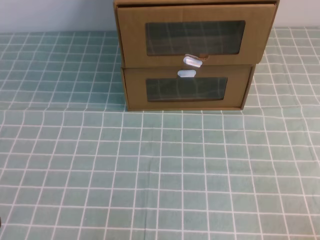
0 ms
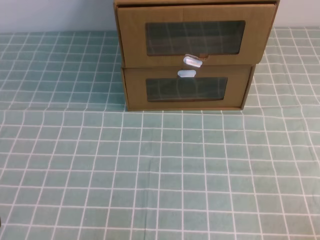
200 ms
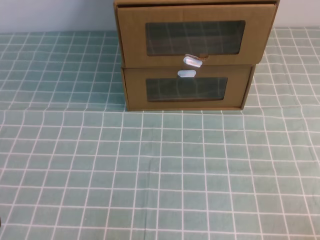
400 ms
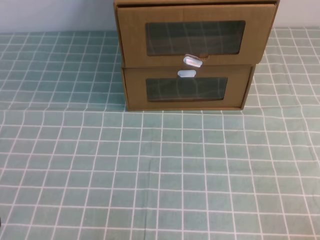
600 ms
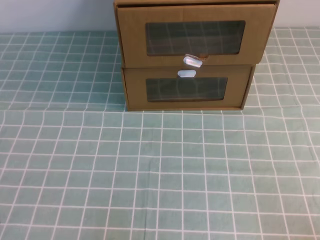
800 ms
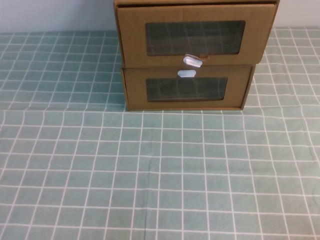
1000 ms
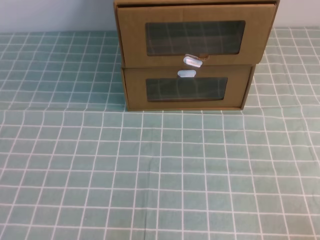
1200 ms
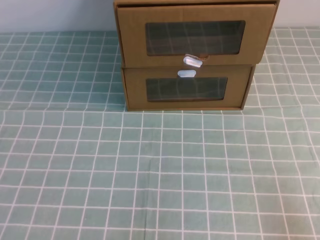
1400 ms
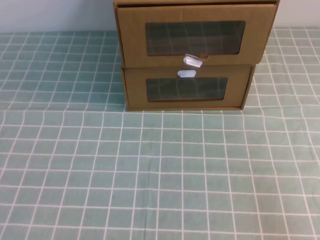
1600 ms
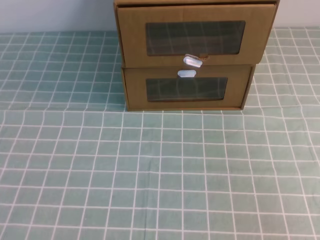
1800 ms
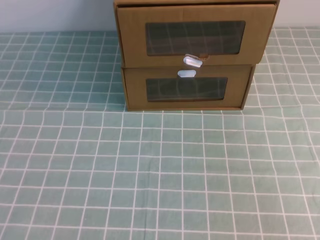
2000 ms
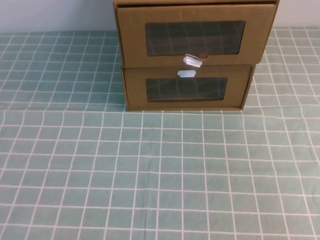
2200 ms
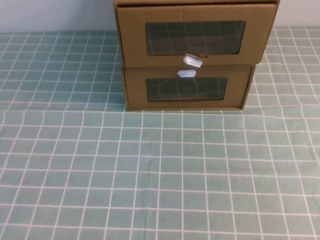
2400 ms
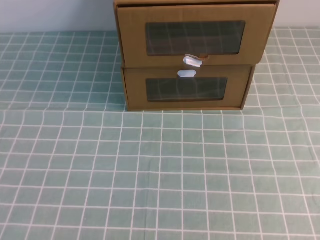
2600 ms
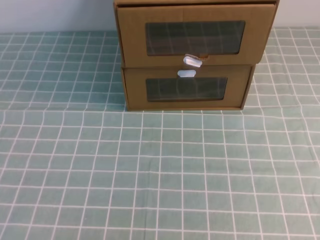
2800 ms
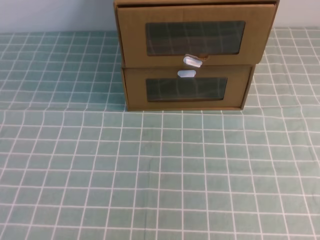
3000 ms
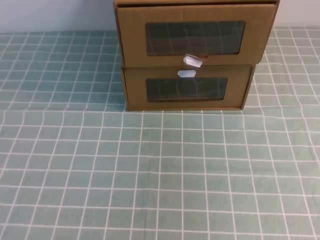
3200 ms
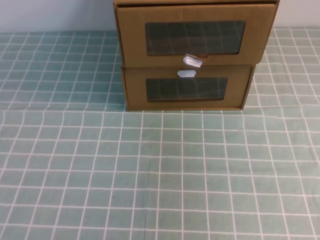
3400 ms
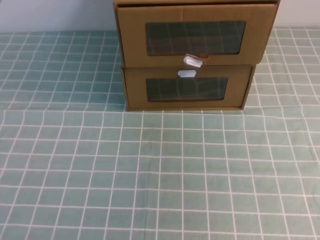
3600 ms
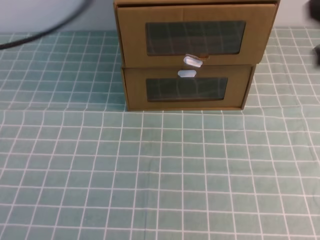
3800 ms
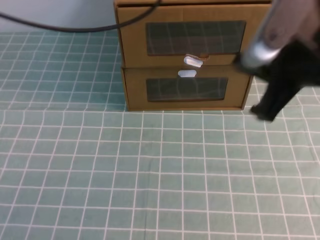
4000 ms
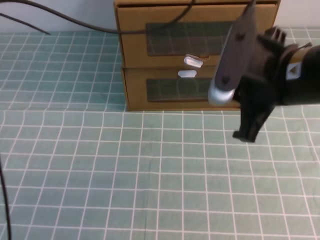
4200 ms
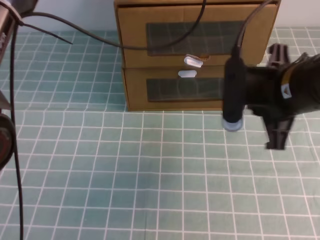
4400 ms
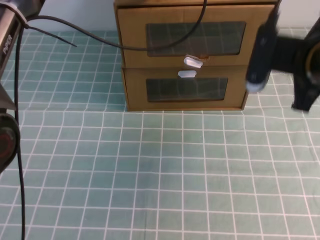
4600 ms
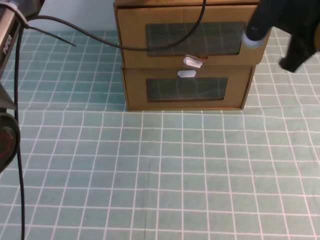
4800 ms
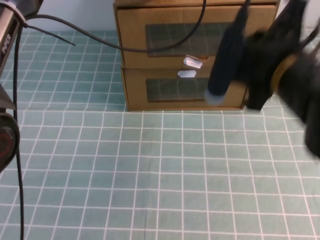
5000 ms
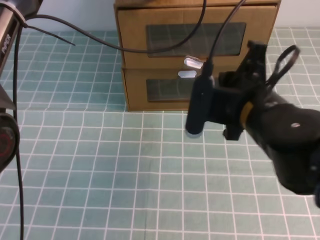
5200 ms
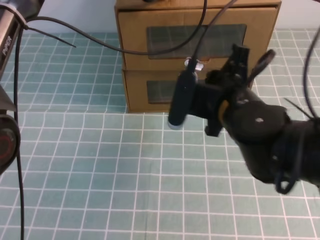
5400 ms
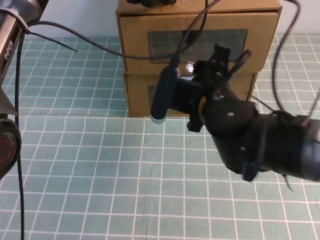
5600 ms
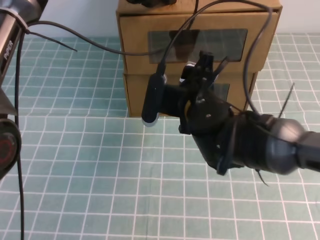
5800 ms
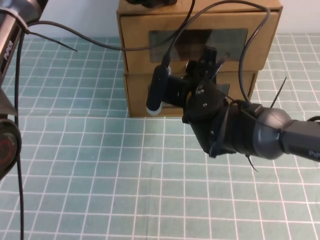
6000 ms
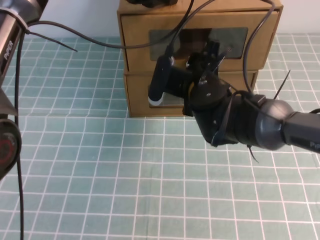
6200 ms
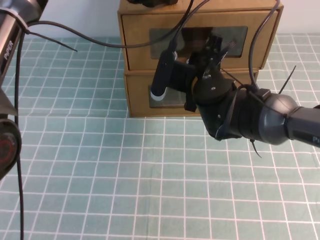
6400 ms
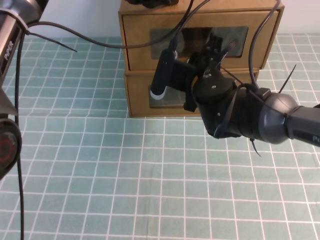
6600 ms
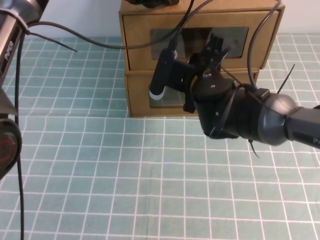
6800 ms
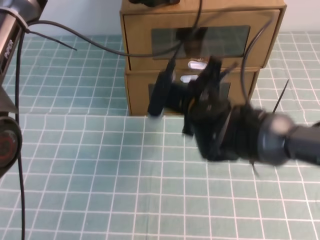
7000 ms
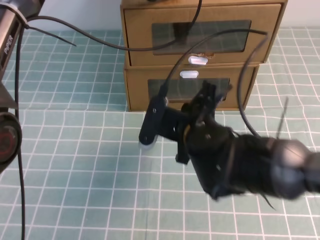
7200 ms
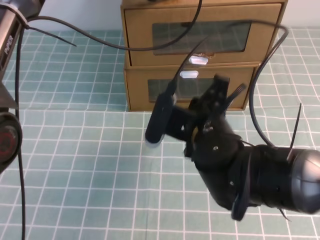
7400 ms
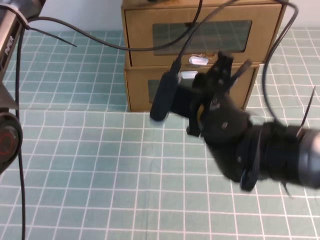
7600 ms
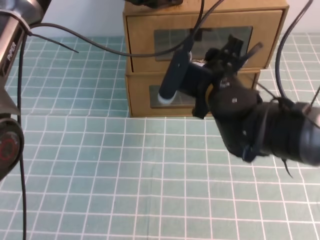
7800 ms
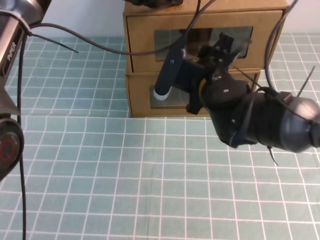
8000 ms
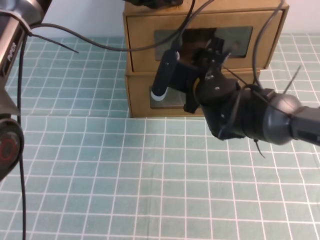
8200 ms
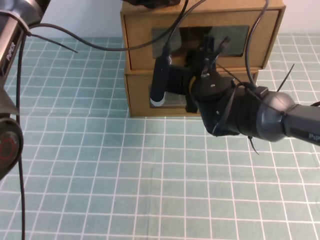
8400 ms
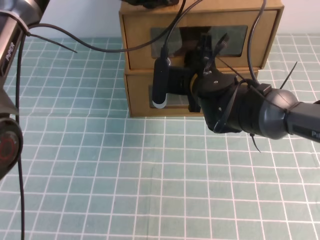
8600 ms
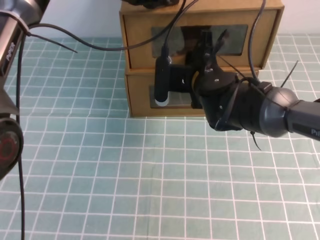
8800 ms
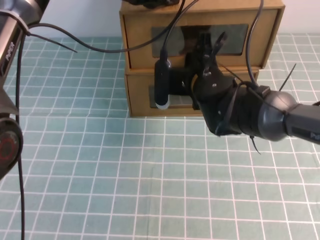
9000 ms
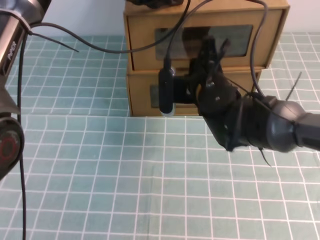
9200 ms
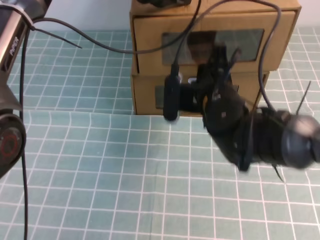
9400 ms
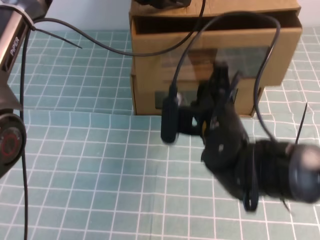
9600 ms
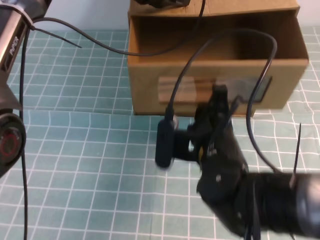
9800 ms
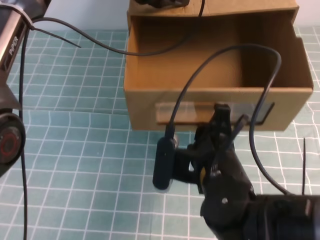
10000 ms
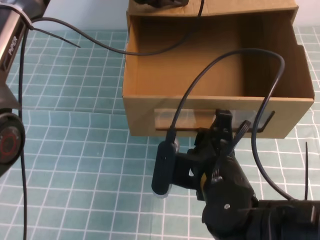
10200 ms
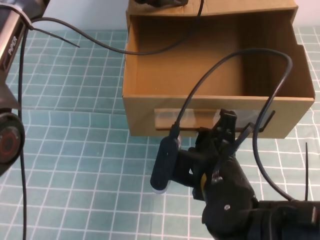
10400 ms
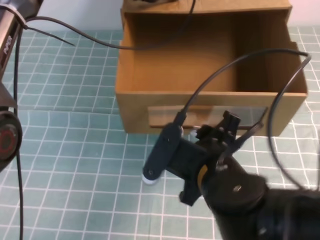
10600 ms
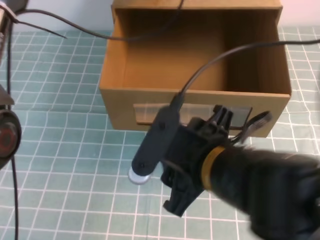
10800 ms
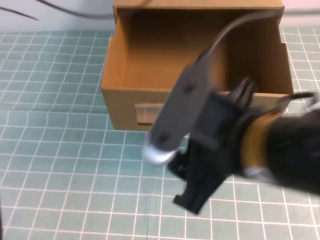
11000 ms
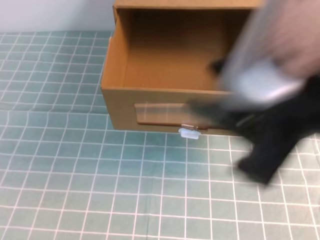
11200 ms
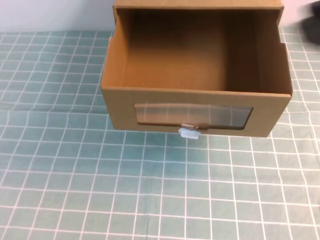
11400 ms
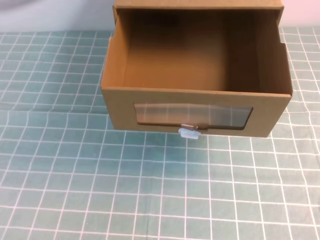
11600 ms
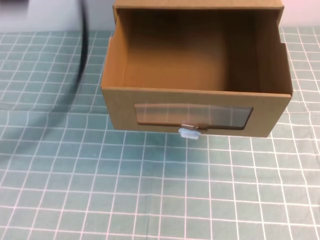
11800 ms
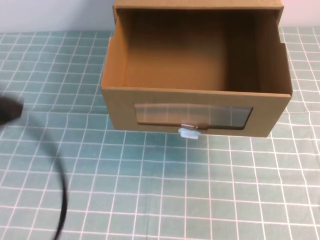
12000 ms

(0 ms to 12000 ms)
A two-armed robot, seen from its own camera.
Task of the whole recording: open the shoebox on the cyan tablecloth.
3000 ms - 4400 ms: The left gripper is displaced forward and to the right by approximately 50 cm; the right gripper travels forward, to the left and downward by approximately 35 cm.
4400 ms - 6000 ms: The right gripper shifts some 15 cm to the left, downward and forward, and opens.
6000 ms - 7600 ms: The right gripper shifts some 5 cm backward, and closes up.
7600 ms - 9000 ms: The right gripper goes some 10 cm forward, and opens and closes again.
9000 ms - 10400 ms: The right gripper travels backward by about 20 cm.
10400 ms - 12000 ms: The left gripper shifts approximately 35 cm backward and to the left; the right gripper travels to the right, upward and backward by approximately 30 cm, and closes its fingers.

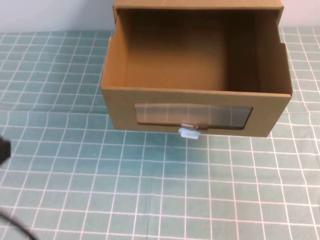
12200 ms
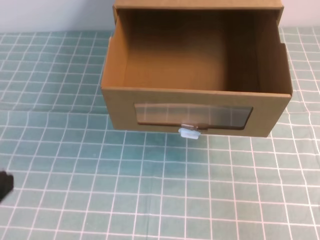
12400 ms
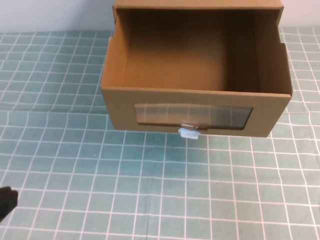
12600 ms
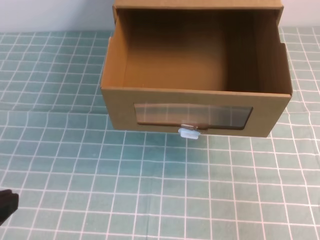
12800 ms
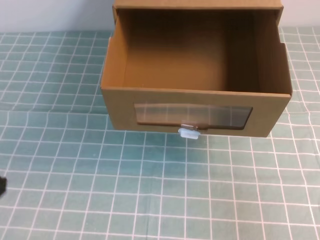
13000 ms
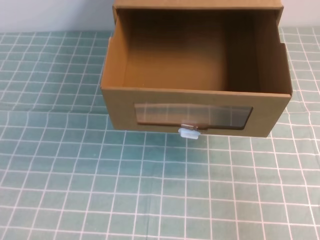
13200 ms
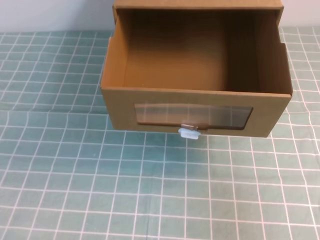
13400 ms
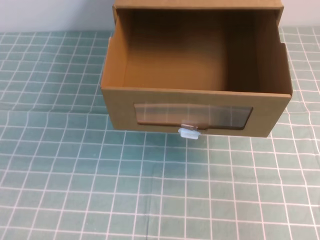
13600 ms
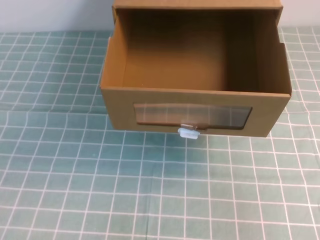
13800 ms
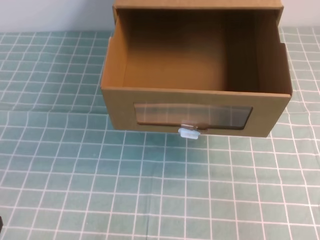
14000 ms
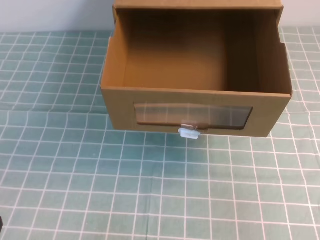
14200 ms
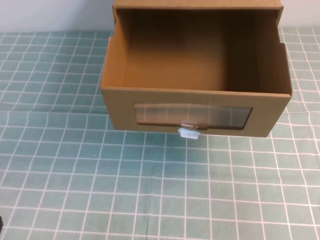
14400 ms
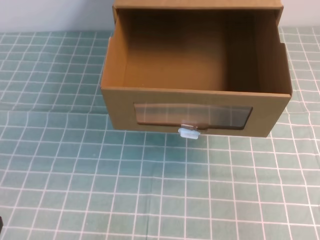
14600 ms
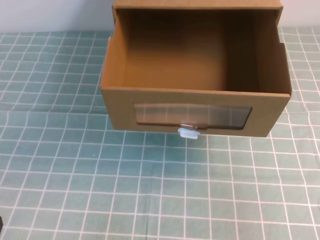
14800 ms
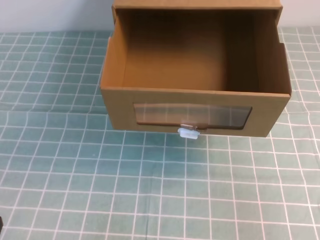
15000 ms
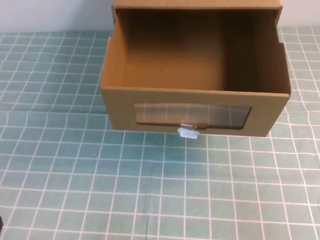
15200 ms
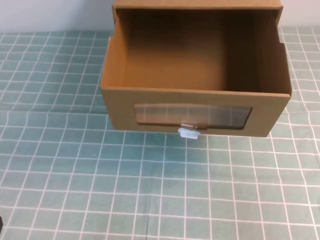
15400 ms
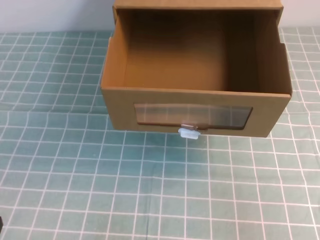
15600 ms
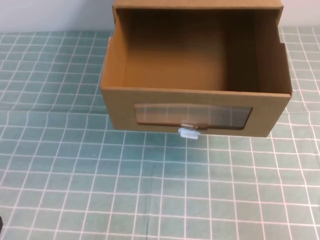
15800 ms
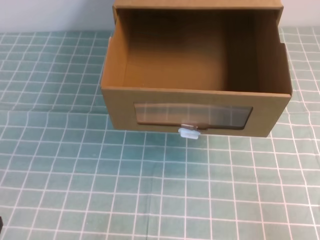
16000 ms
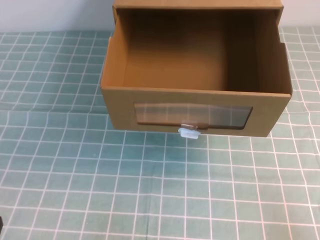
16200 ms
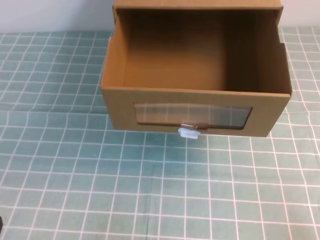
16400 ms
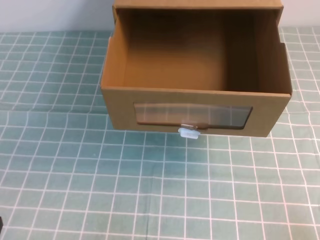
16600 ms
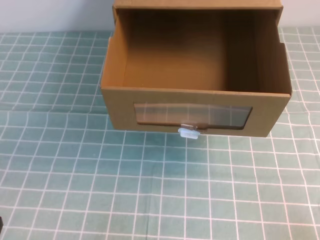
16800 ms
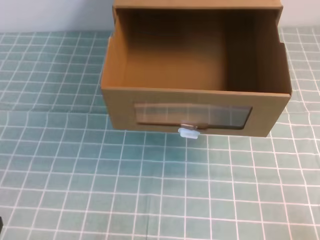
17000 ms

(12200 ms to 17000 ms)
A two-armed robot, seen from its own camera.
Task of the whole recording: open the shoebox on the cyan tablecloth.
Step, 12200 ms - 17000 ms: Open the shoe box.
12200 ms - 13800 ms: The left gripper is displaced downward by some 20 cm.

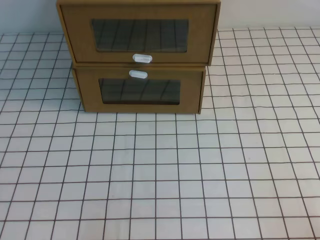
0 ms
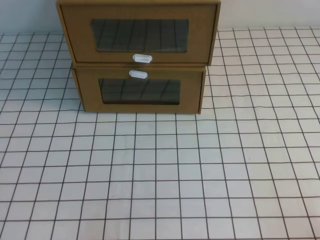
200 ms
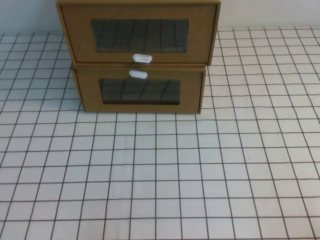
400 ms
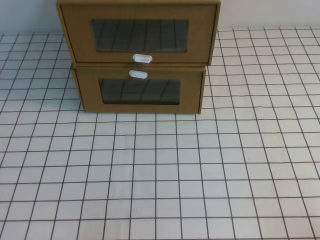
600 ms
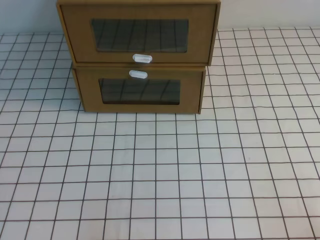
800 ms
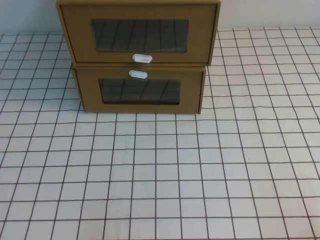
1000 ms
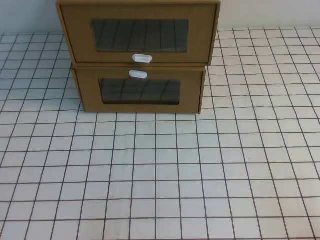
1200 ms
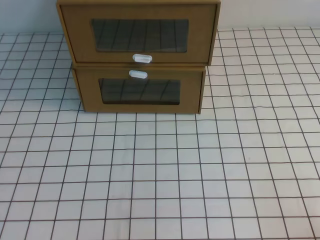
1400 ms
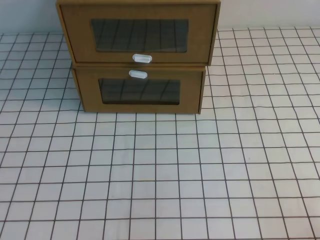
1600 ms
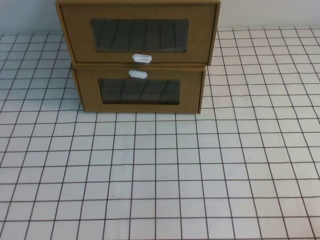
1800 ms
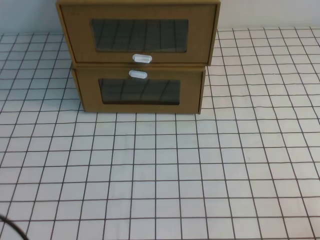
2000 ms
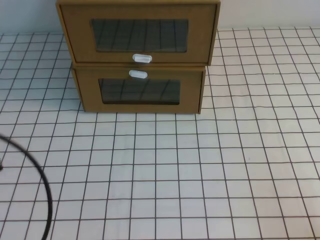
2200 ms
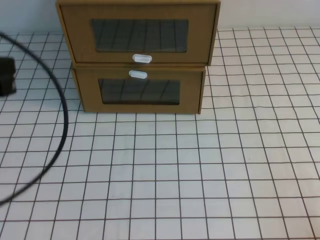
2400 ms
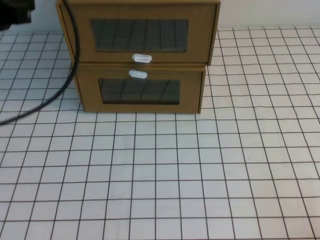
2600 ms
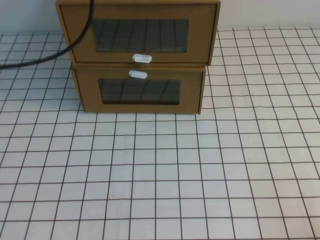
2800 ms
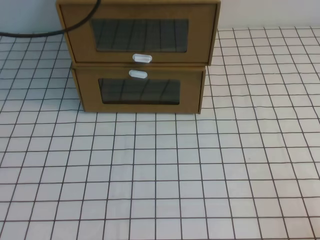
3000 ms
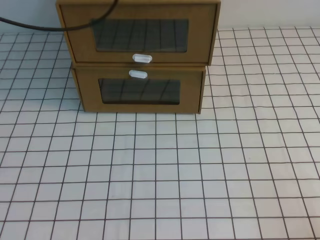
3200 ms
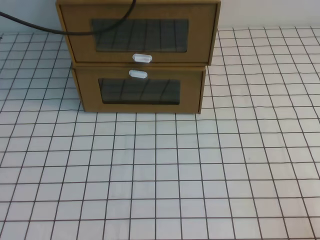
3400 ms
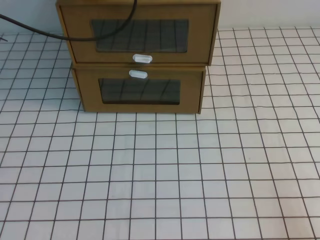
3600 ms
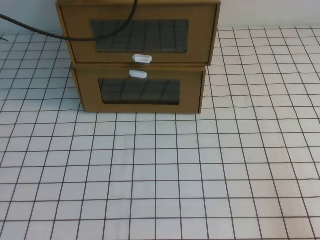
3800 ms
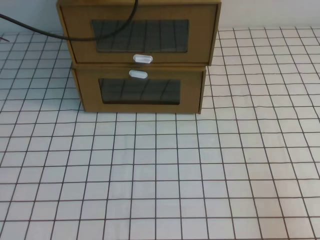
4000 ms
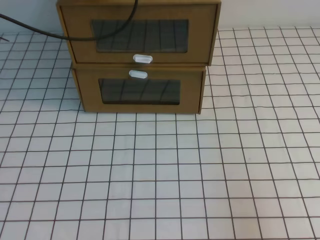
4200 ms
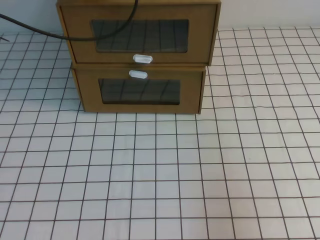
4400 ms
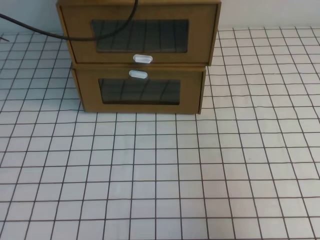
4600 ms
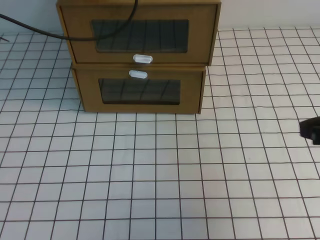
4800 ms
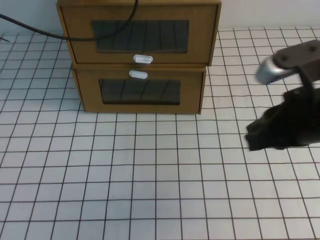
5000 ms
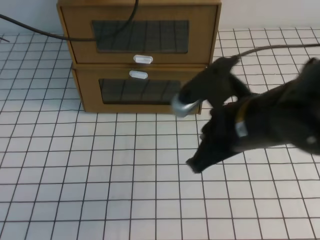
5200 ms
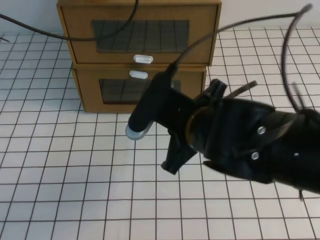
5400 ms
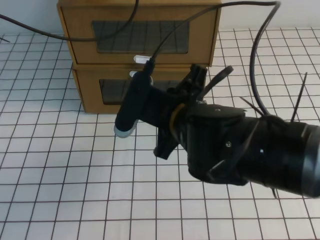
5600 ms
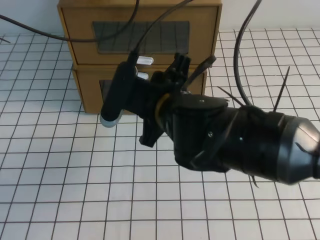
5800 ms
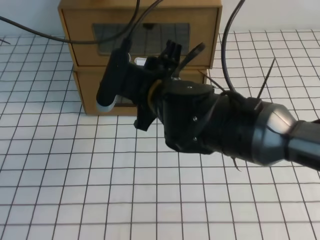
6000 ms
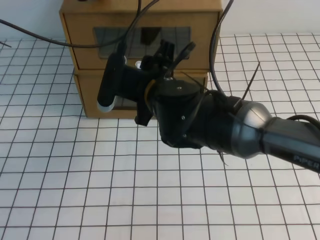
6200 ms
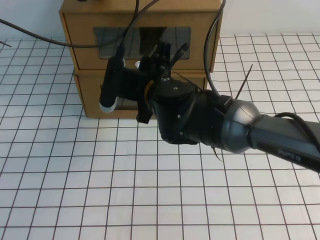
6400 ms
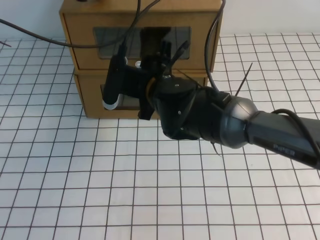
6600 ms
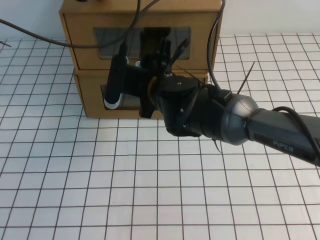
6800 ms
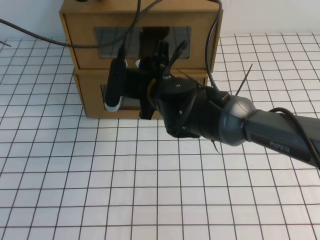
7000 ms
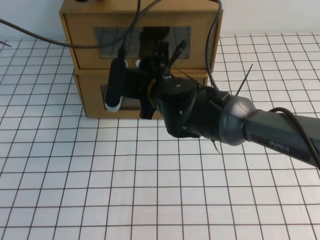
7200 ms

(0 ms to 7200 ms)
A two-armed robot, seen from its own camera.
Task of the whole recording: open the shoebox on the white tablecloth.
1400 ms - 2800 ms: The left gripper is displaced upward and forward by some 35 cm.
2800 ms - 4400 ms: The right gripper goes about 10 cm upward, while the left gripper moves forward, approximately 15 cm.
4400 ms - 5800 ms: The right gripper shifts approximately 35 cm to the left and forward, and opens up.
5800 ms - 7200 ms: The right gripper goes approximately 10 cm forward, and opens up.
